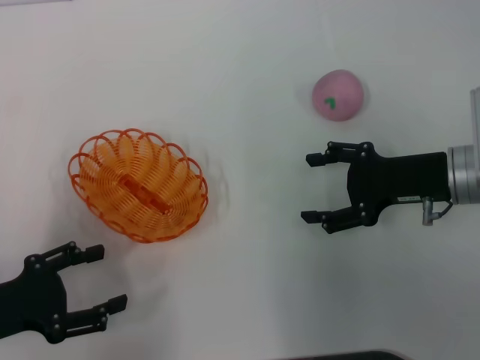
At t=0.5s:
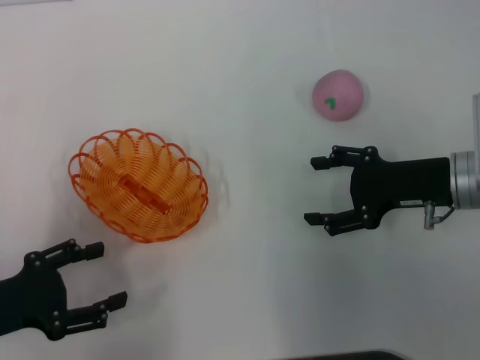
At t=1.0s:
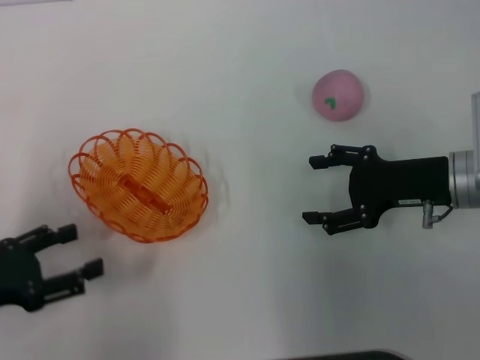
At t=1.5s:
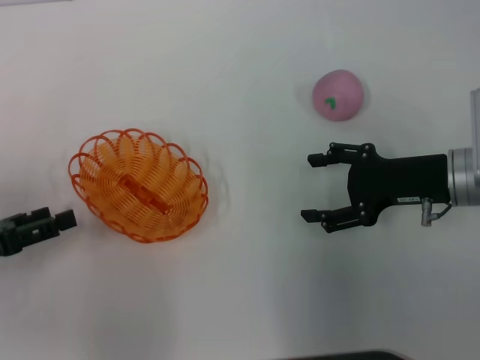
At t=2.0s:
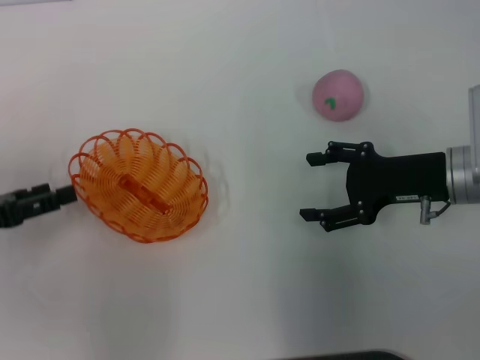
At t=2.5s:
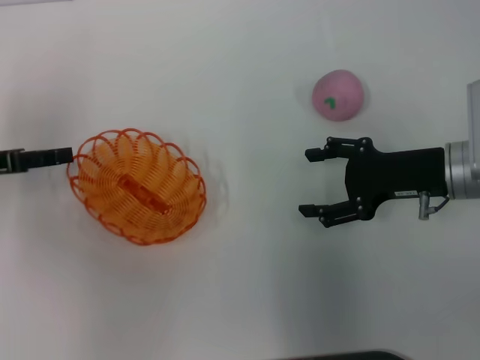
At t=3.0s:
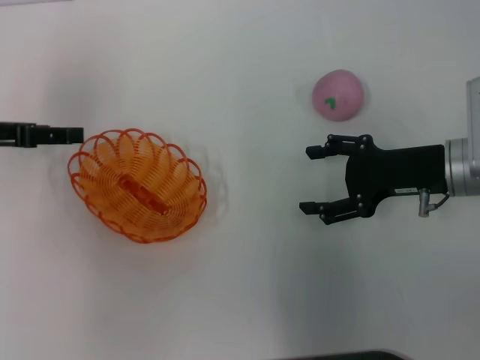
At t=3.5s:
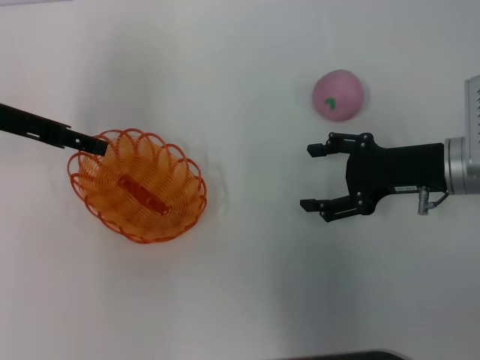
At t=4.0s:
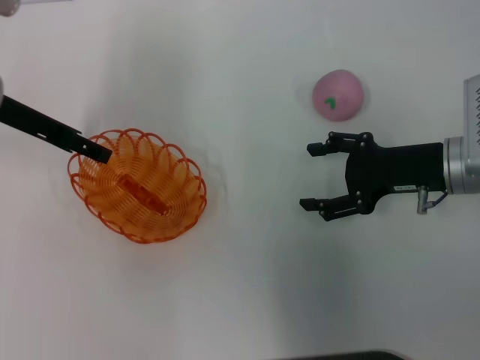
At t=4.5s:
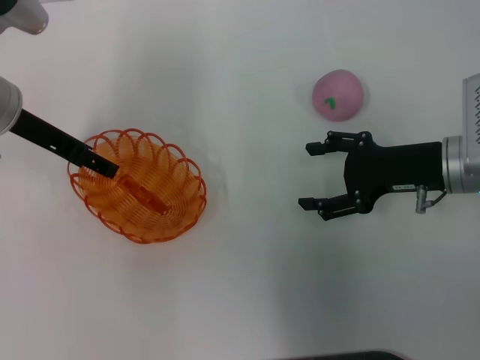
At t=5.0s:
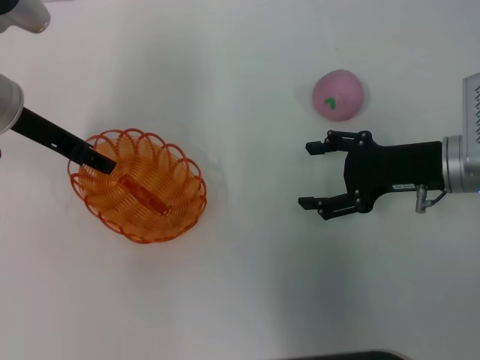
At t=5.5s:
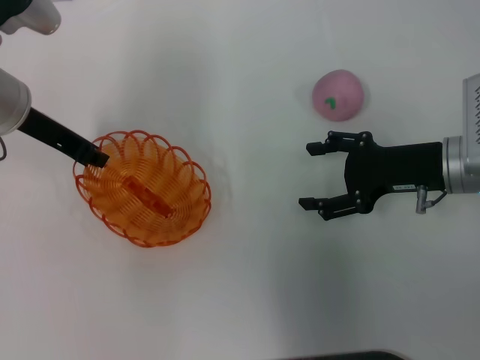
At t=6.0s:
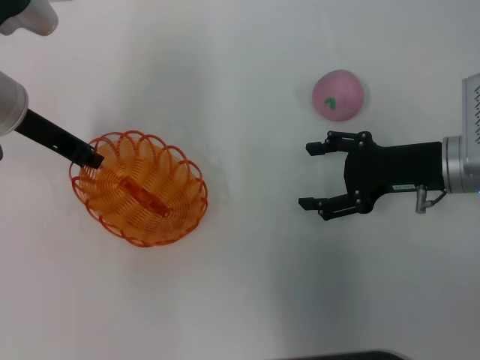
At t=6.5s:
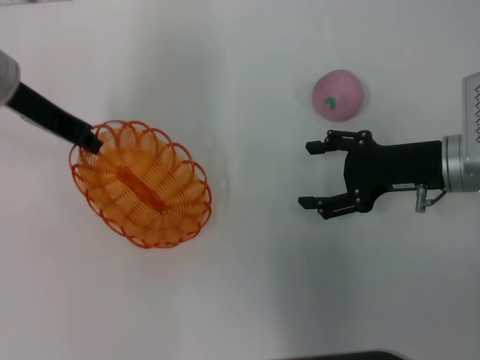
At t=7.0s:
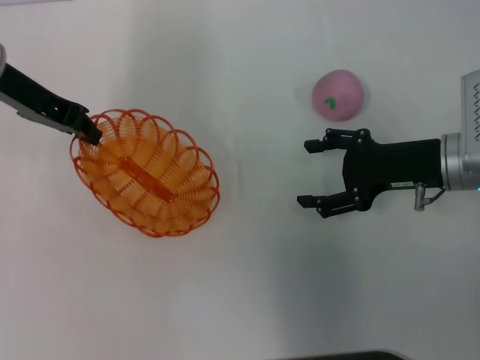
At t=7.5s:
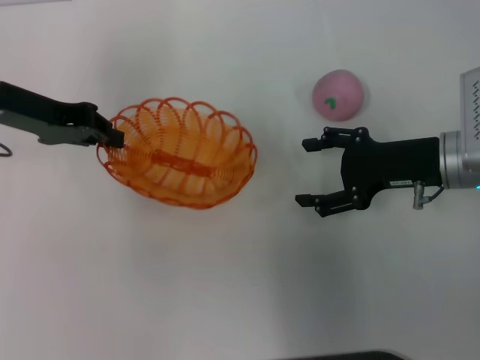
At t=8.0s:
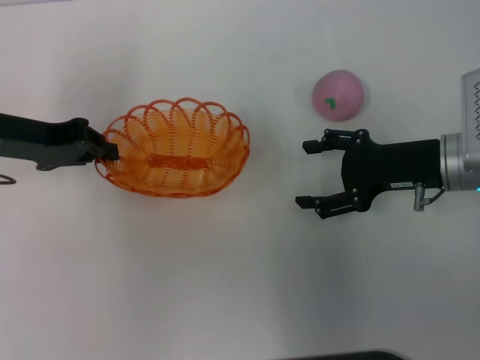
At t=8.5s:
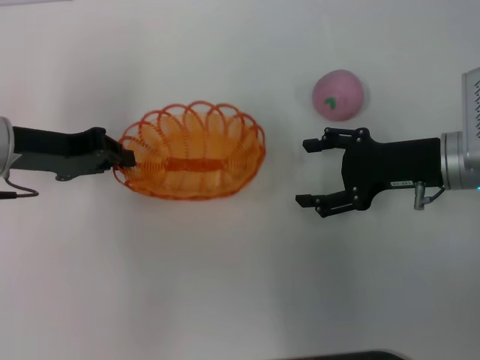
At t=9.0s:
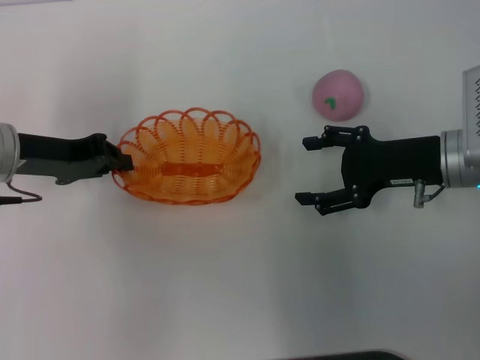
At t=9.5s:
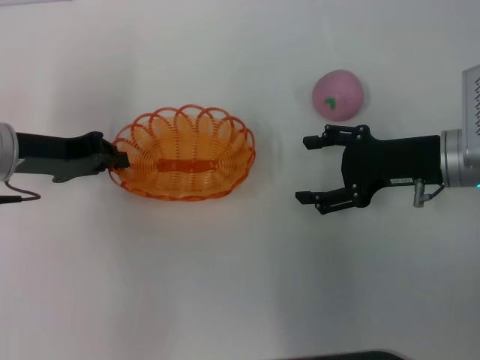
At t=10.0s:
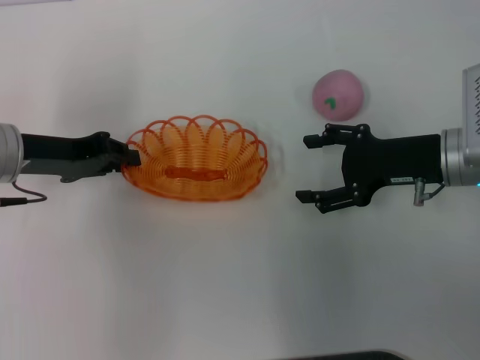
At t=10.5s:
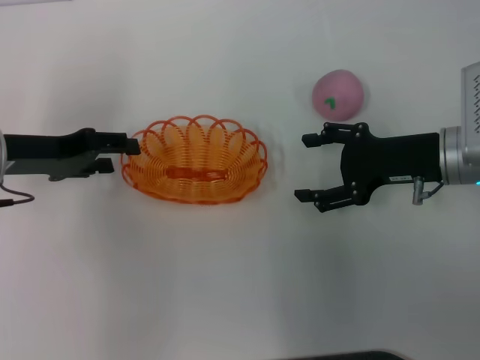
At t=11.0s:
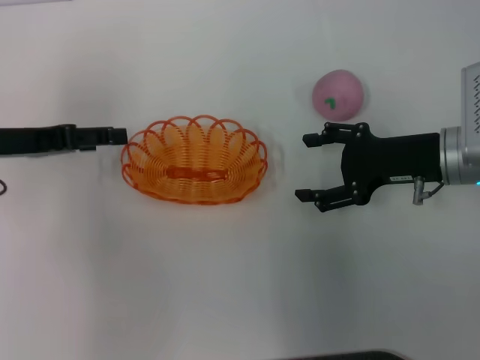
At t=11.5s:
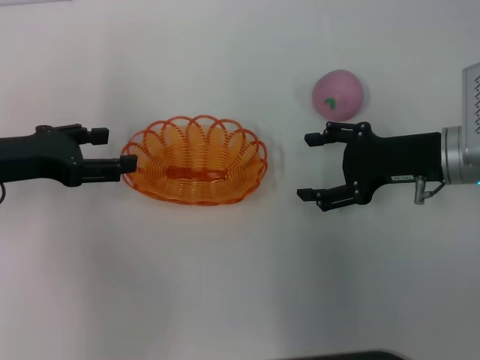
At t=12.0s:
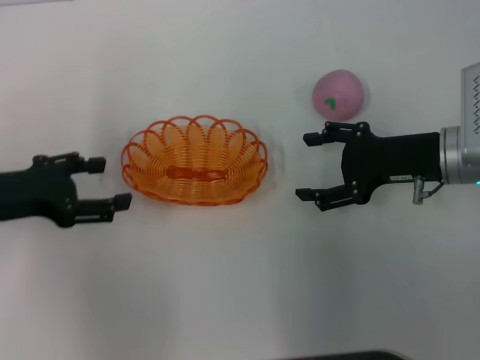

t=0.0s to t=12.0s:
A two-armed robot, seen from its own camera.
Step, t=0.0s to t=7.0s: Pick up the basket with the left gripper.
t=0.0s to t=2.0s: The left gripper shifts some 5 cm forward.
t=2.0s to t=4.0s: The left gripper is displaced forward, to the right and upward by approximately 20 cm.
t=4.0s to t=6.0s: The left gripper closes up.
t=6.0s to t=8.0s: The left gripper ends up some 5 cm from where it was.
t=8.0s to t=10.0s: The grippers move only a little.
t=10.0s to t=12.0s: The left gripper heads backward, covering some 5 cm, and opens.

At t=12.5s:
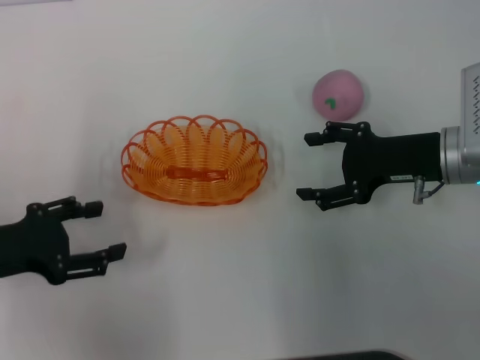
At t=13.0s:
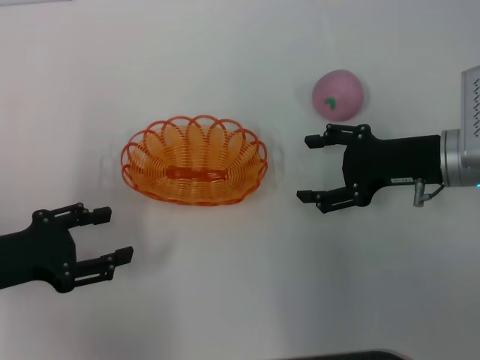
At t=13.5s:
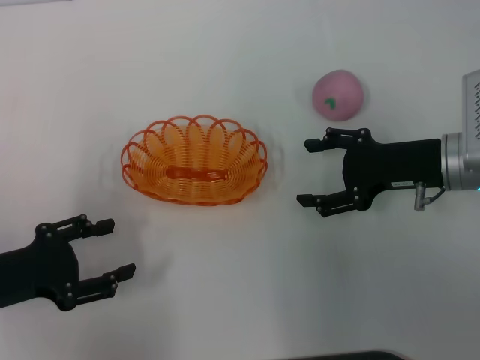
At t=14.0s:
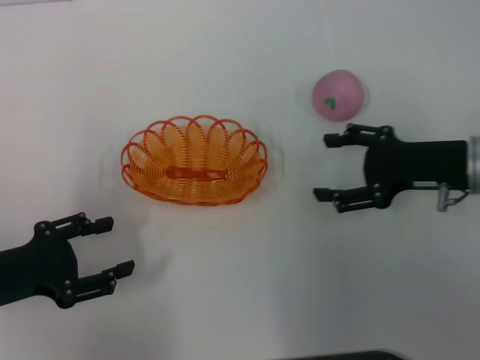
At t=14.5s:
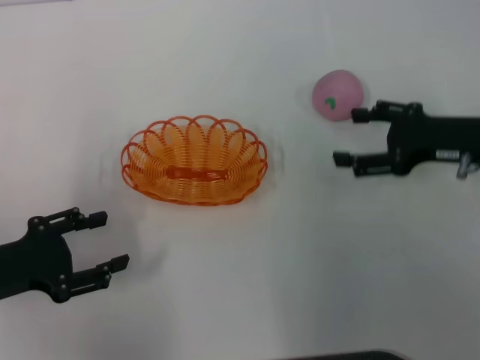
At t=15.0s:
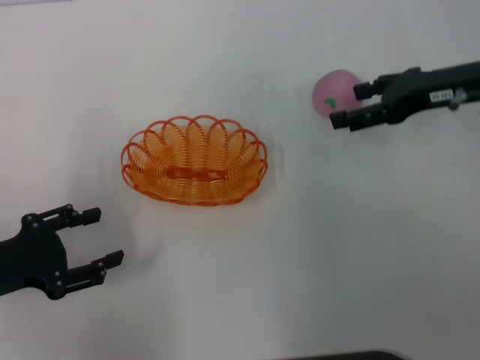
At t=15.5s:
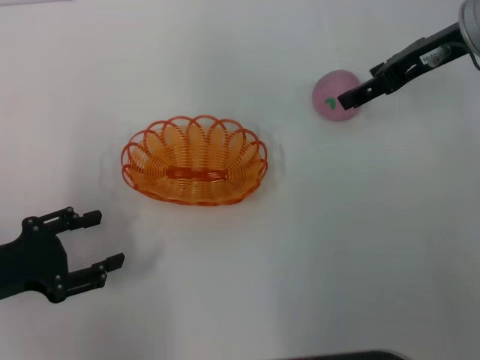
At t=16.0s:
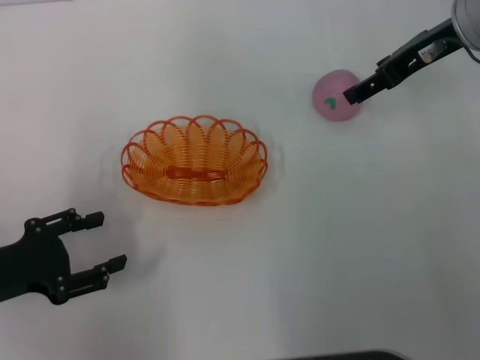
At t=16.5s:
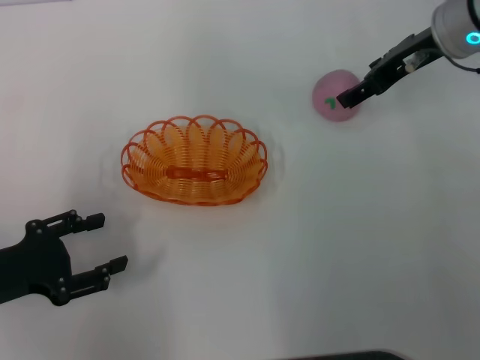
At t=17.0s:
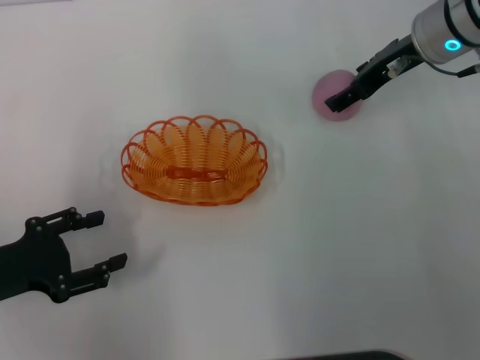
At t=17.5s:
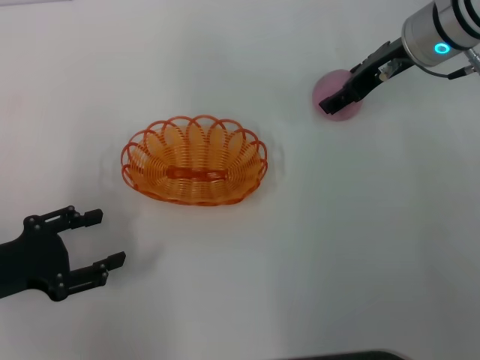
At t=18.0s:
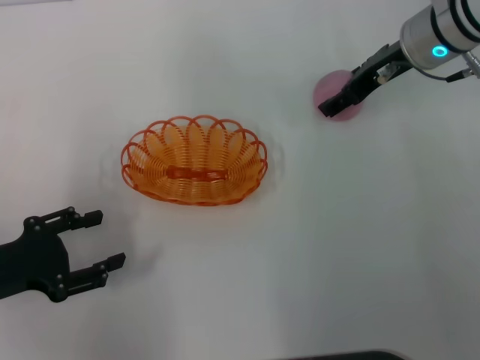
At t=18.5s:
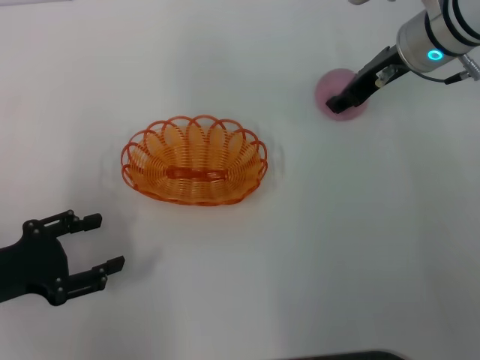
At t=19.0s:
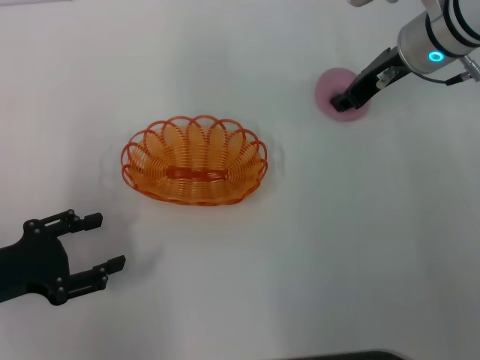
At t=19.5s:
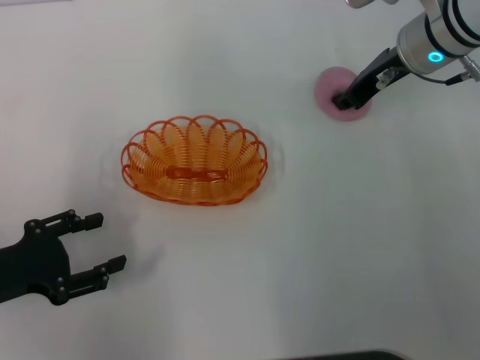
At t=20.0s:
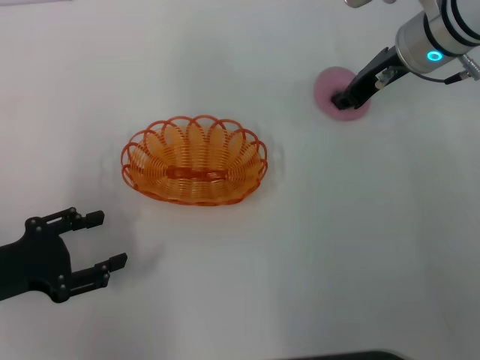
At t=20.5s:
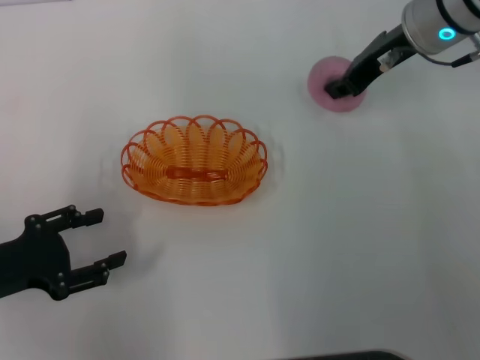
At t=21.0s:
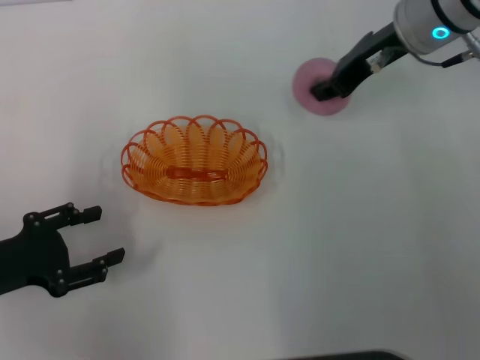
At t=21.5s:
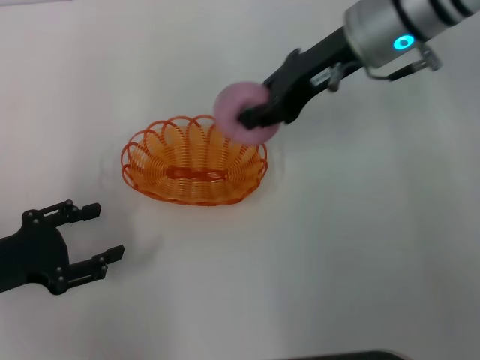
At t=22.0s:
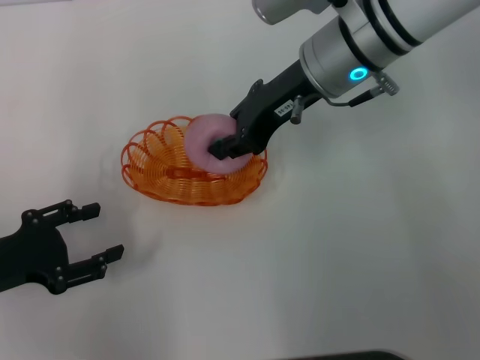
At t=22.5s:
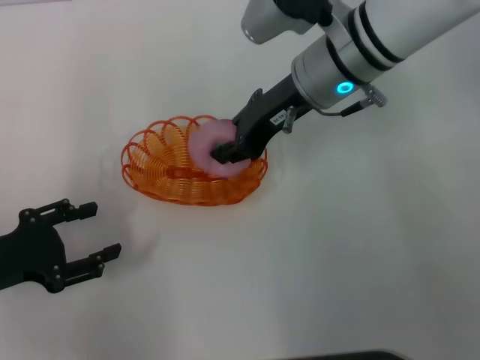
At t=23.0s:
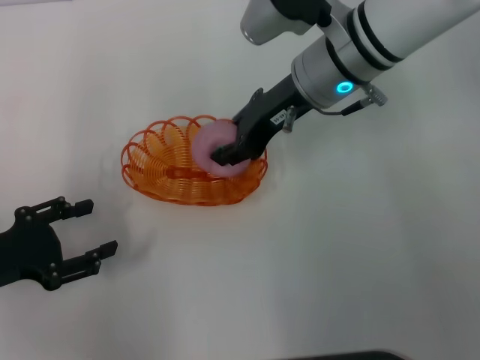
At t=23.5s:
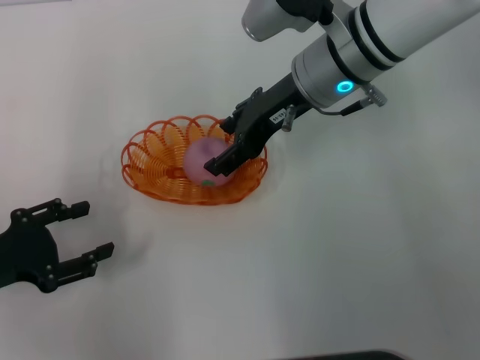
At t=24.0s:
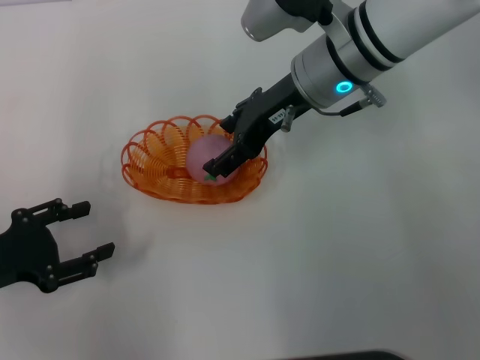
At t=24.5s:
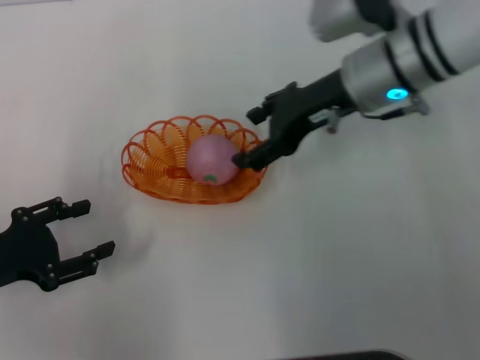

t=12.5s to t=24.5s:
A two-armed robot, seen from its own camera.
Step, t=12.5s to t=20.5s: Pick up the peach with the right gripper.
t=12.5s to t=14.5s: The grippers stay close to where they were, moving slightly.
t=14.5s to t=16.5s: The right gripper travels forward, upward and to the left by some 15 cm.
t=16.5s to t=18.5s: The grippers move only a little.
t=18.5s to t=20.5s: The right gripper closes its fingers.
t=20.5s to t=22.5s: The right gripper heads to the left, covering some 10 cm.
t=22.5s to t=24.5s: The right gripper goes roughly 5 cm to the right, and opens.

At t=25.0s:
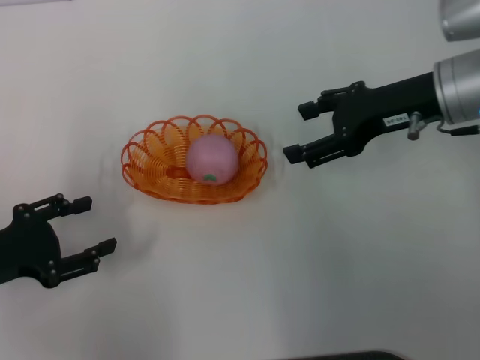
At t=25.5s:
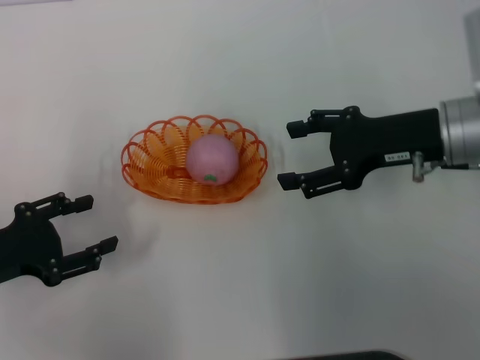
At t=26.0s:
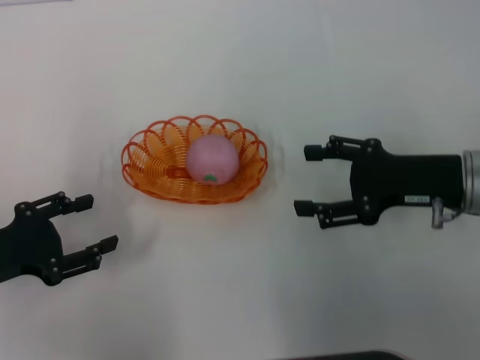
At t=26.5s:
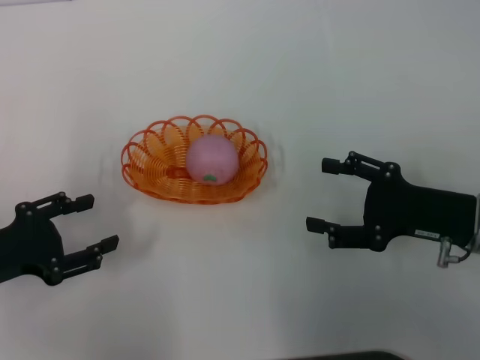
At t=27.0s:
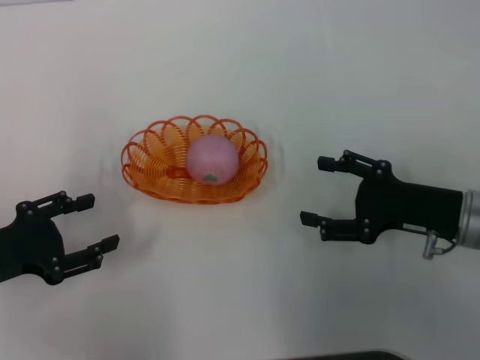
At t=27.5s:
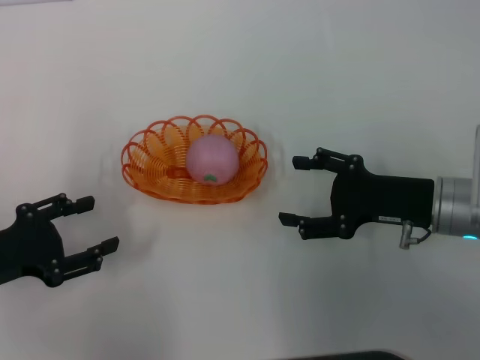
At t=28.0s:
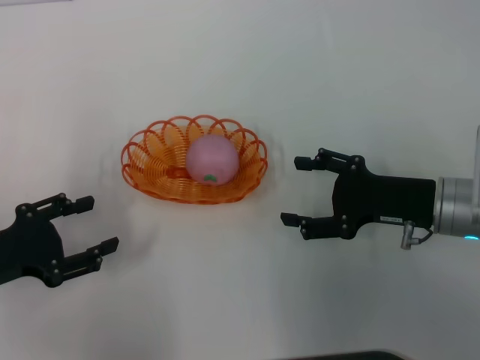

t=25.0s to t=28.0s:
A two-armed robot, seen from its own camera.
t=25.0s to t=26.5s: The right gripper heads backward and downward, covering about 15 cm.
t=26.5s to t=28.0s: The grippers make only small movements.
